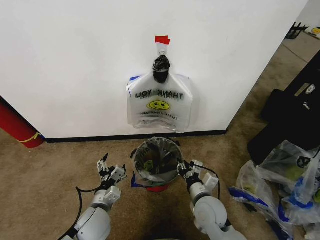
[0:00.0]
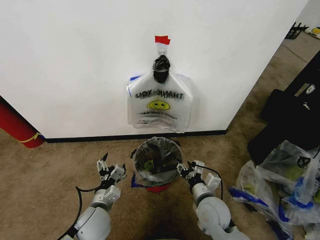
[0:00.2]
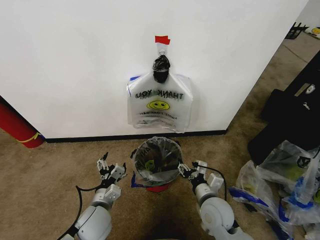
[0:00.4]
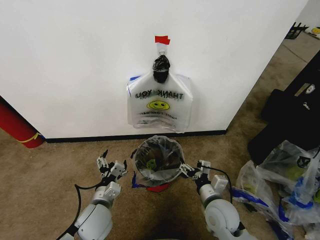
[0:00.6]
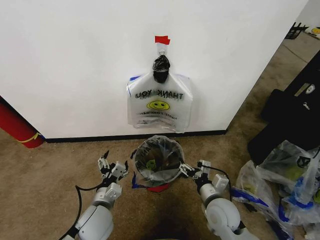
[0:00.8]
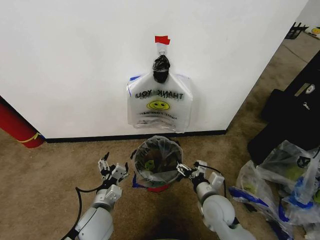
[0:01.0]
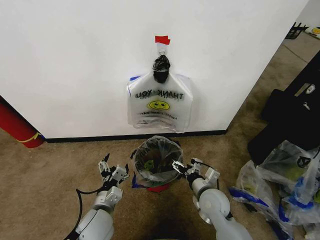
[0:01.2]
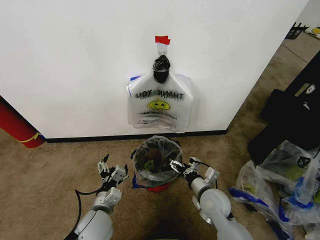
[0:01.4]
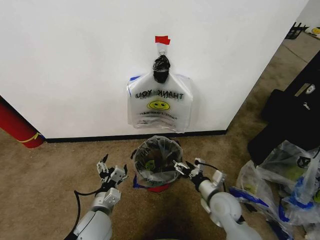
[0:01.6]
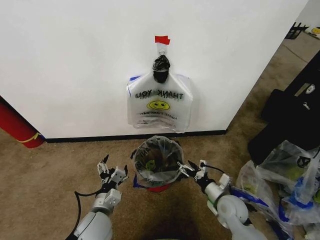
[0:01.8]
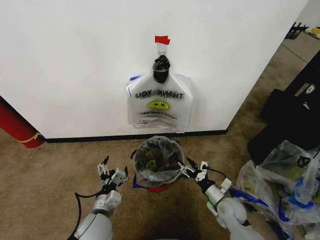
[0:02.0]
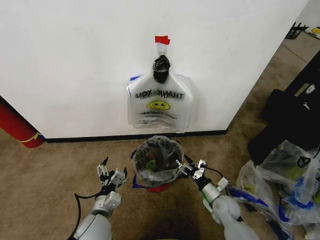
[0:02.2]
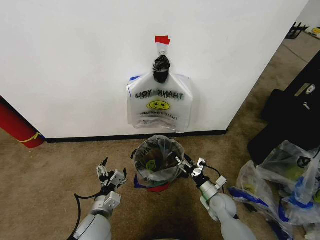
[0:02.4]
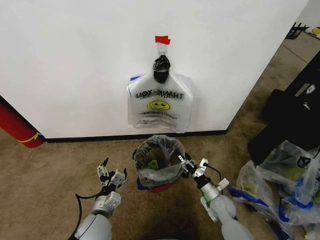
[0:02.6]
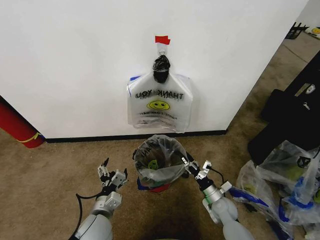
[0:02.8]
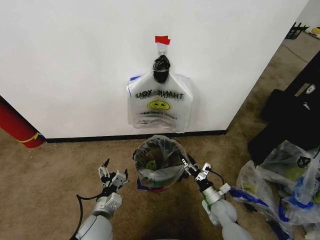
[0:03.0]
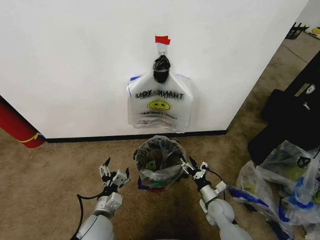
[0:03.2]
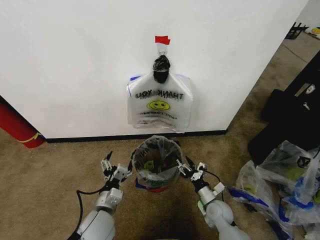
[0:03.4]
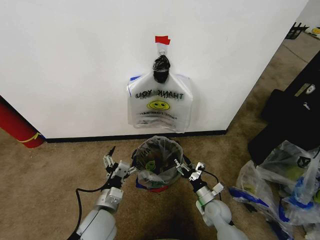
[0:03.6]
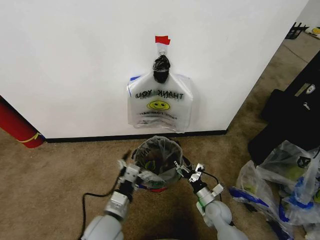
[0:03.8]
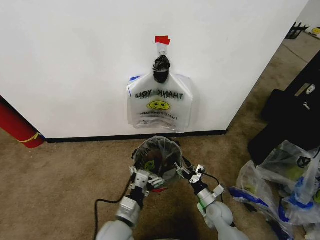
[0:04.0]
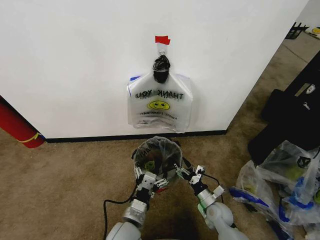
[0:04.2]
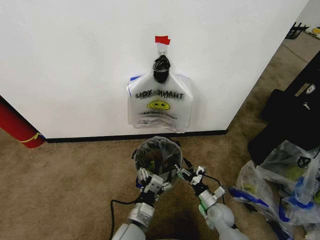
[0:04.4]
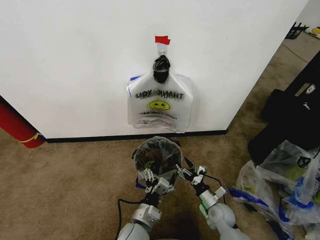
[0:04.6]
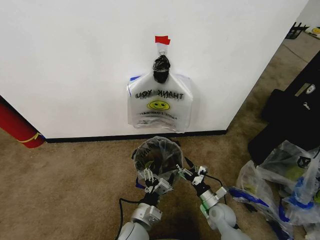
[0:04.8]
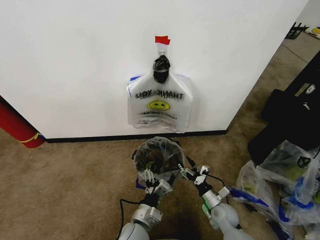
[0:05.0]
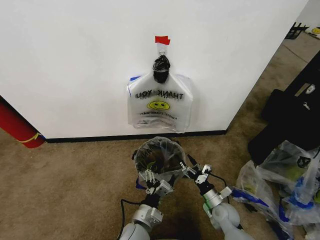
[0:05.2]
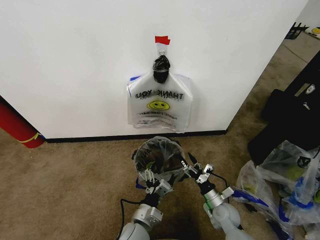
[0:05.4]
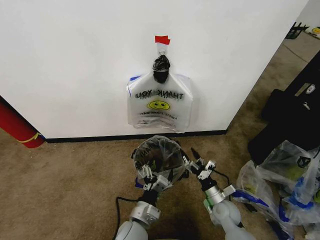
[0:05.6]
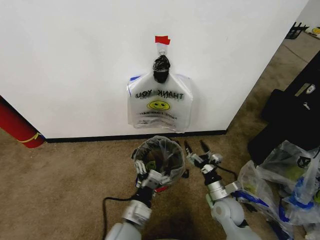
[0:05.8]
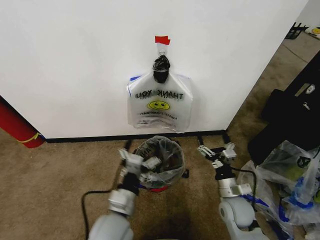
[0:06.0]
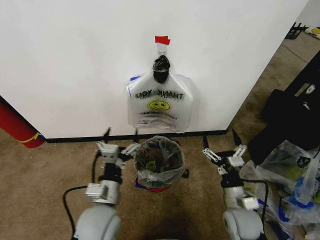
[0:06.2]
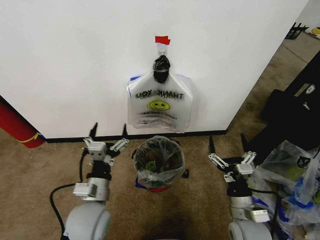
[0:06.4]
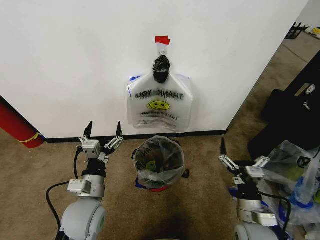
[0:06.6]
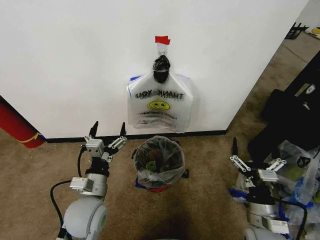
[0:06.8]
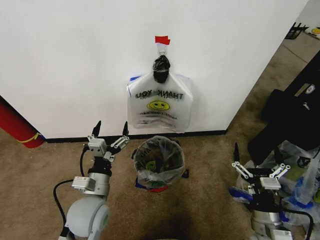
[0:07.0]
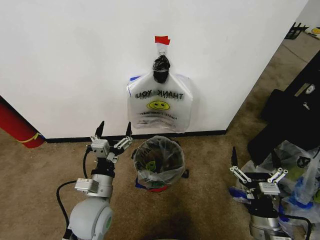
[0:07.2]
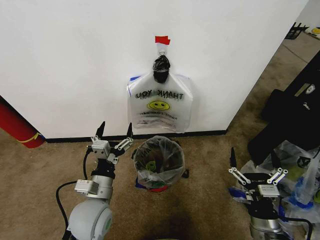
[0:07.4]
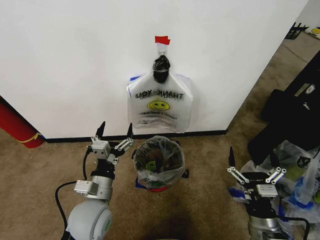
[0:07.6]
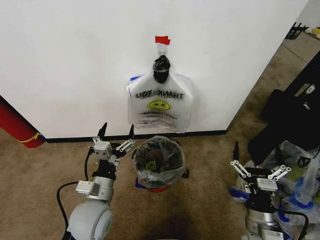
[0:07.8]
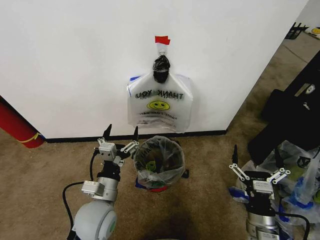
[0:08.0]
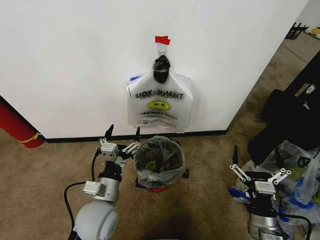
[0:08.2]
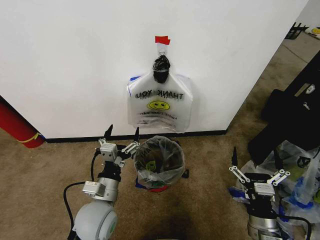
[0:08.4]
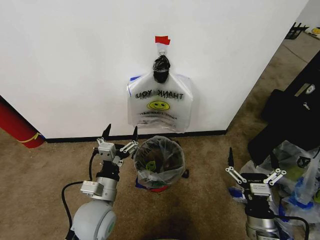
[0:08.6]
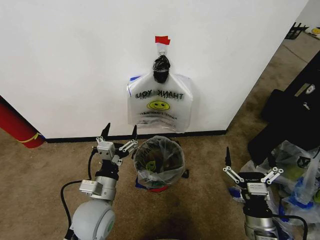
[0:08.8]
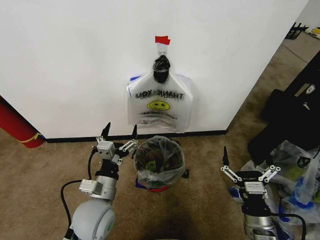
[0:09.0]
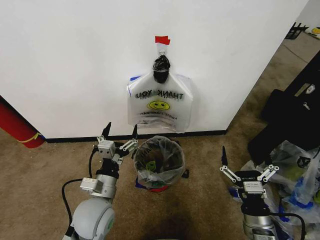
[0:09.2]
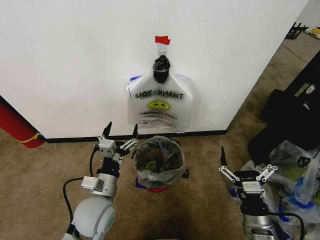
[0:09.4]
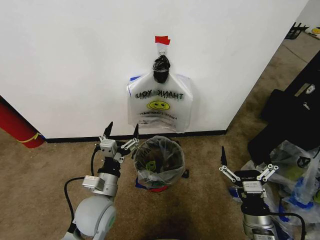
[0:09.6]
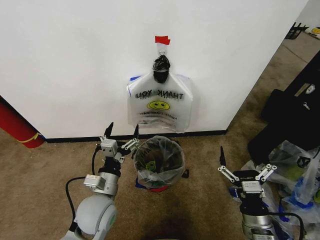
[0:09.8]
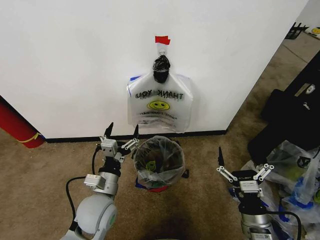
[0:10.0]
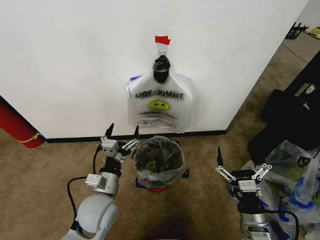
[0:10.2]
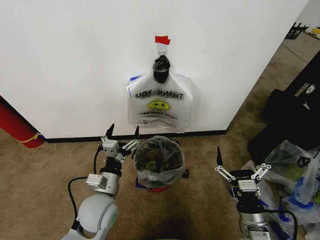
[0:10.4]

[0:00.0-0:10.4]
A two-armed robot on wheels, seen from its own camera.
Task of the whole recording: Pick up the garbage bag from the wall and place it over the trash bin.
0:00.0 to 0:01.4: The right gripper opens its fingers.
0:01.4 to 0:03.0: The right gripper is displaced downward and to the right by about 15 cm.
0:03.0 to 0:04.4: The left gripper shifts approximately 10 cm to the right.
0:04.4 to 0:06.0: The left gripper is displaced upward by some 10 cm; the right gripper goes approximately 10 cm upward.
0:06.0 to 0:07.4: The left gripper shifts some 5 cm to the left. The right gripper is displaced backward by approximately 10 cm.
0:07.4 to 0:10.4: There are only small adjustments of the grippers.

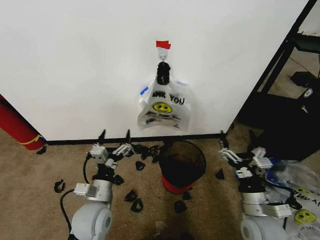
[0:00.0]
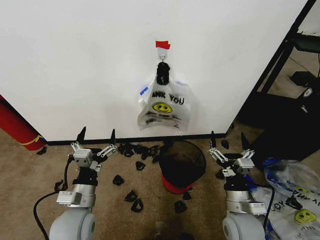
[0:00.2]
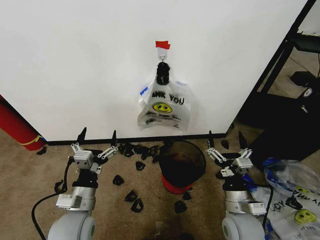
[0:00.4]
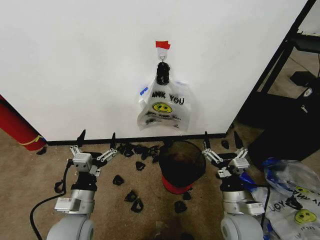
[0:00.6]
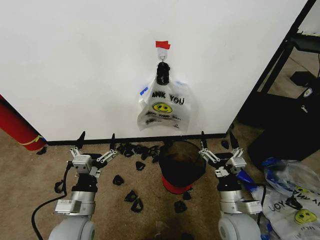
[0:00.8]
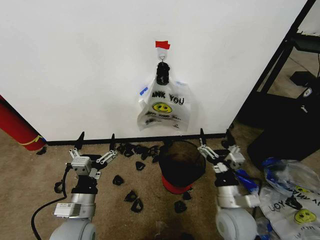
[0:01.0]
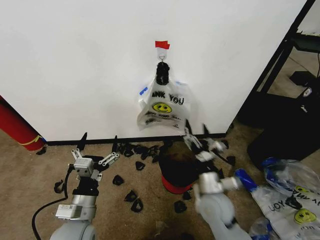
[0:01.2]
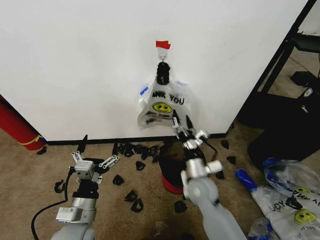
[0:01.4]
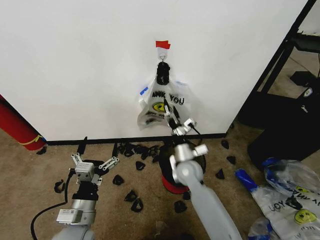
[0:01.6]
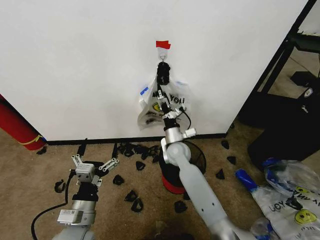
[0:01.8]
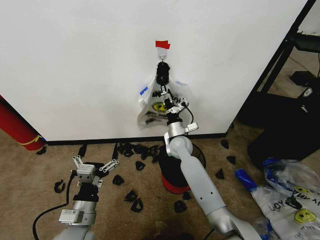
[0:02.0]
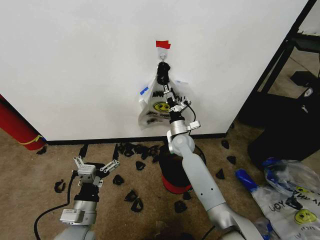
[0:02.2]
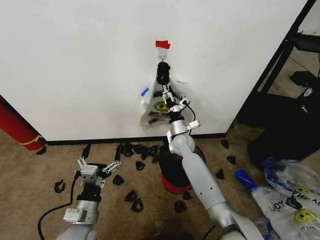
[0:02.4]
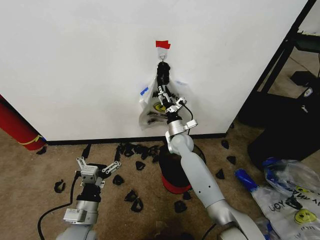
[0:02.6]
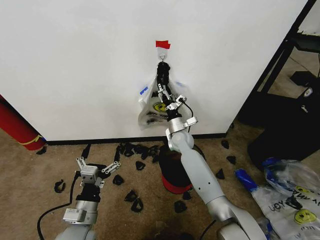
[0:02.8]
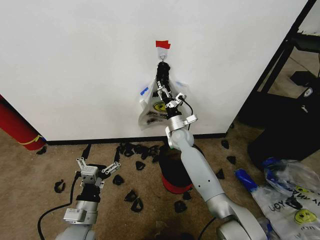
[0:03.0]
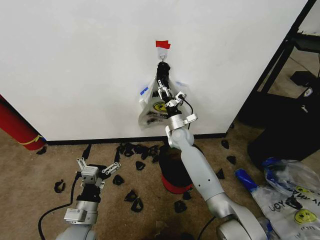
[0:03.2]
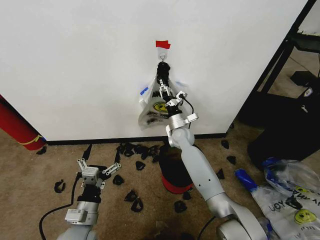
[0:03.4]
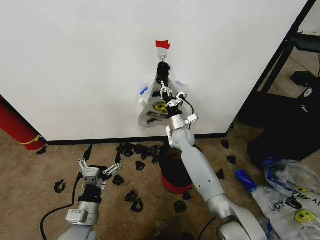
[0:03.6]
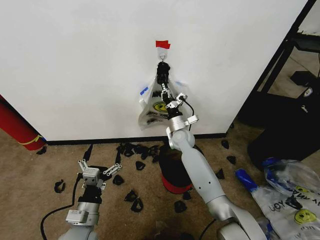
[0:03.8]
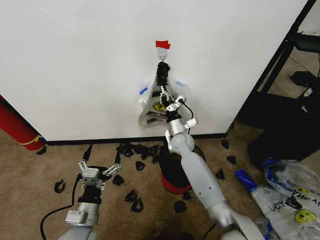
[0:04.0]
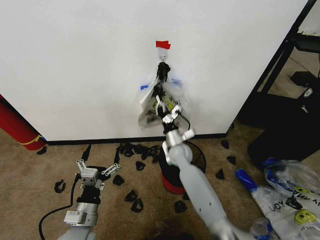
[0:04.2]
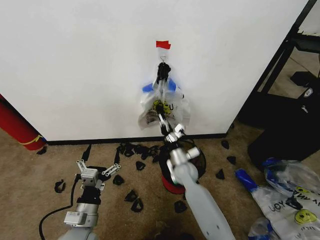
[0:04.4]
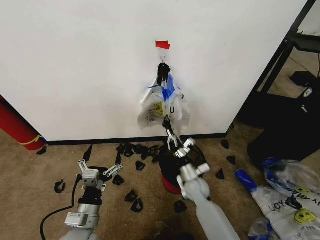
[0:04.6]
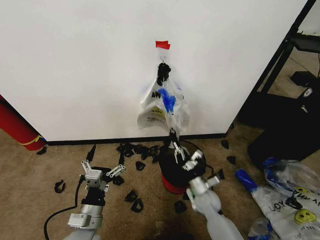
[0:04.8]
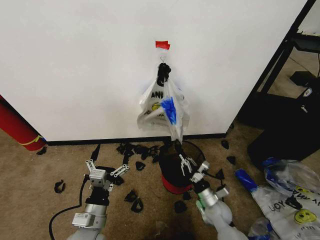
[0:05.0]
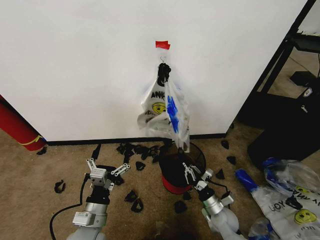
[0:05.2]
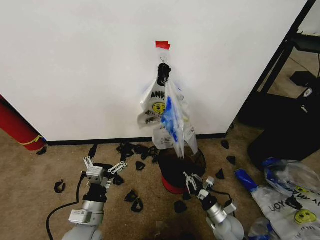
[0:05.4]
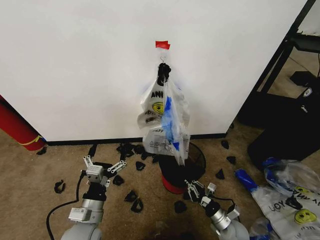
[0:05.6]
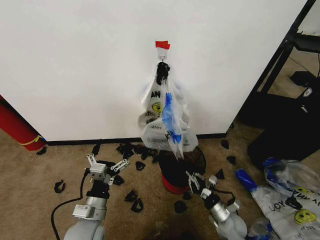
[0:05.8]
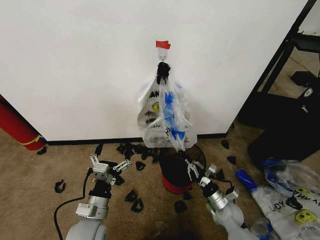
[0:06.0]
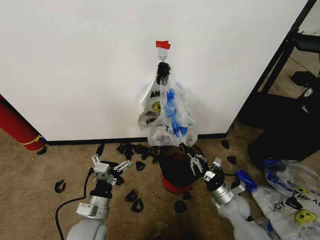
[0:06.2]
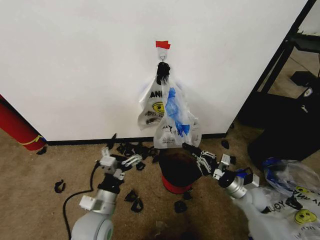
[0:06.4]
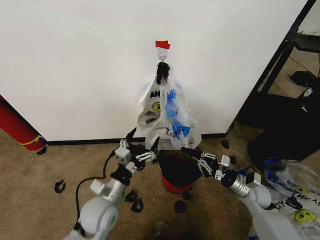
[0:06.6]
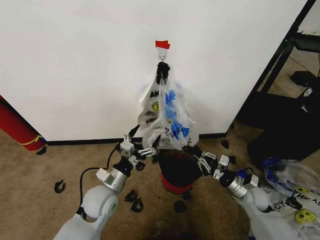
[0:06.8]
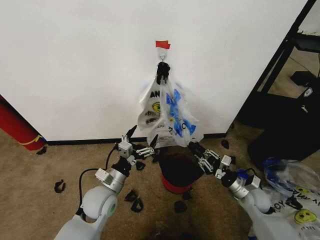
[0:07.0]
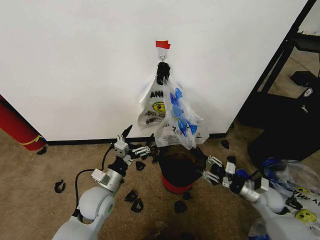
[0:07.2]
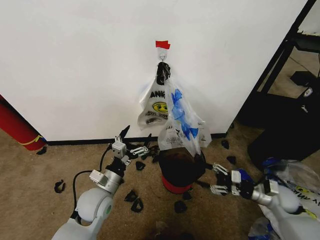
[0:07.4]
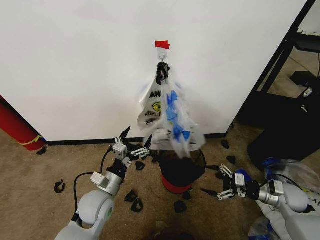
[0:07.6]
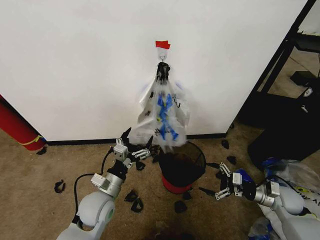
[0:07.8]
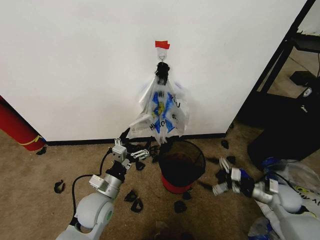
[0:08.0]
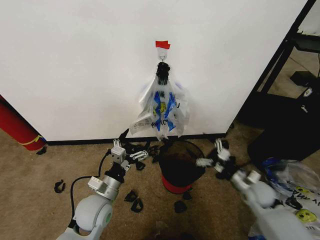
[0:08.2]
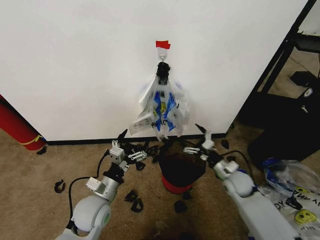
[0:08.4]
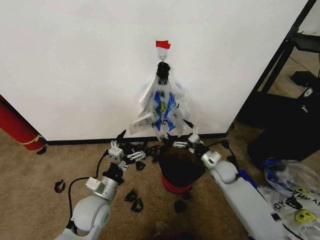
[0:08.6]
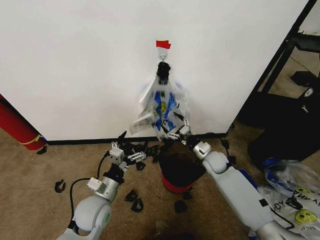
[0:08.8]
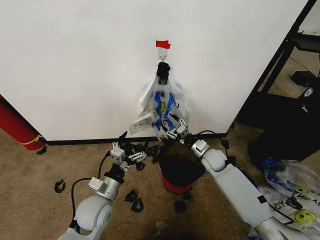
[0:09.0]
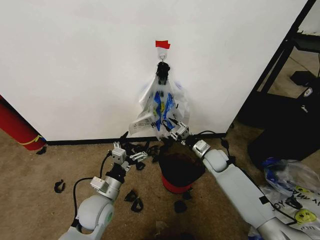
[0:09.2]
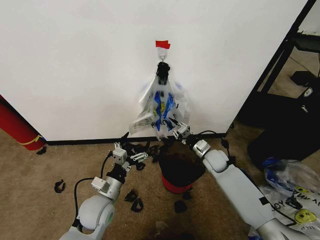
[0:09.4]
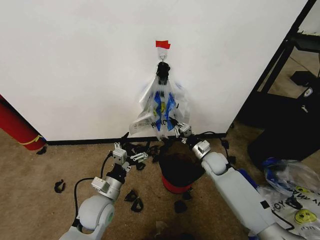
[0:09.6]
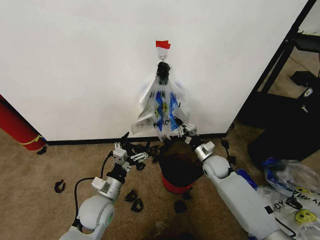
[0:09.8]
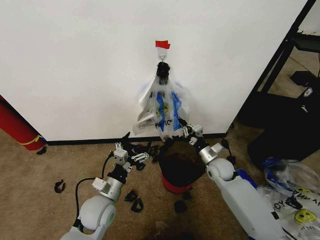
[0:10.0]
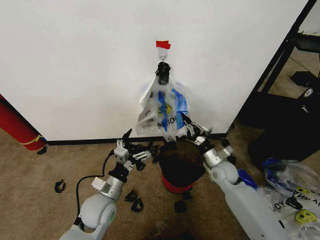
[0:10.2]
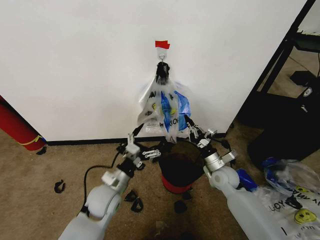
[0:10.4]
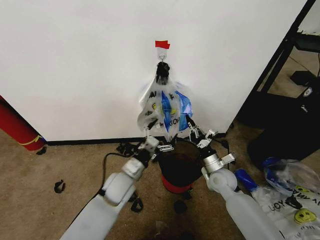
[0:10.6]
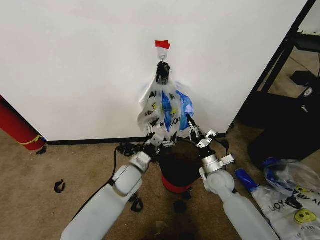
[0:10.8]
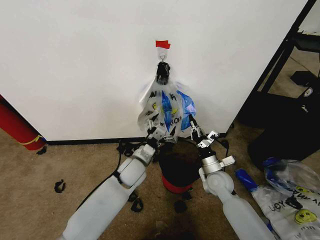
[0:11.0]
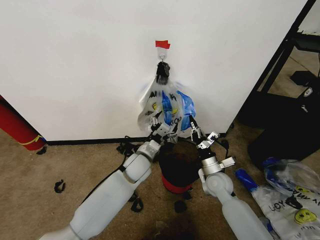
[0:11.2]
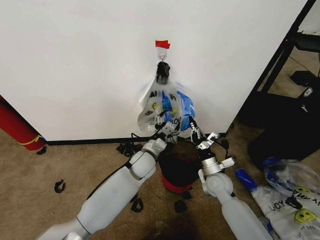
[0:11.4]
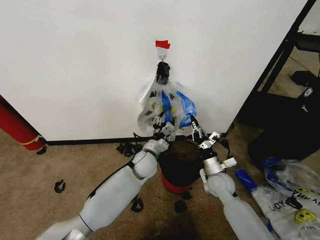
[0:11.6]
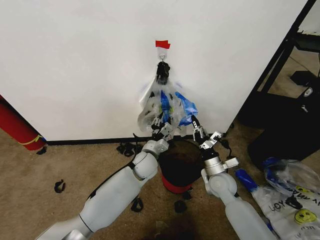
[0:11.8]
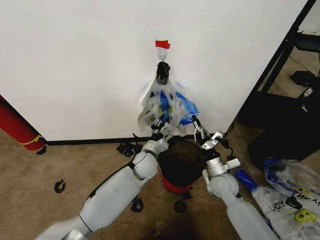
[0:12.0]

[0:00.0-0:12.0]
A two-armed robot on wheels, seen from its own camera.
Task of the whole recording: Pick up the garbage bag from the wall and place it over the trash bin.
0:01.6 to 0:03.0: The right gripper goes about 15 cm forward.
0:03.0 to 0:04.4: The right gripper is displaced backward and downward by some 15 cm, and closes up.
0:04.4 to 0:06.0: The right gripper is displaced to the right, backward and downward by approximately 25 cm.
0:06.0 to 0:07.6: The left gripper shifts about 5 cm forward; the right gripper travels to the right and upward by about 20 cm, and opens up.
0:07.6 to 0:09.0: The right gripper travels to the left and forward by approximately 25 cm.
0:09.0 to 0:10.4: The right gripper heads backward, covering approximately 10 cm, and closes its fingers.
0:10.4 to 0:12.0: The left gripper shifts about 15 cm forward and to the right, and closes.
